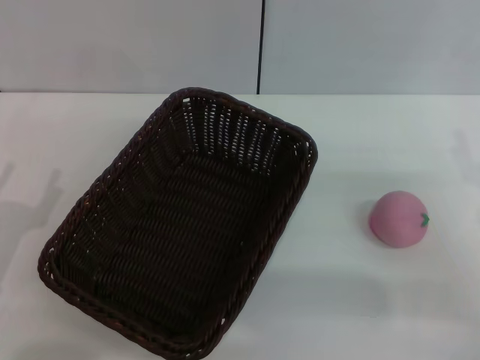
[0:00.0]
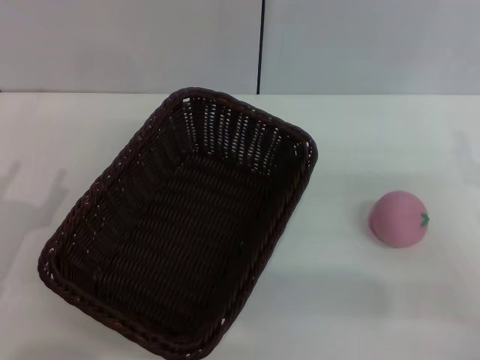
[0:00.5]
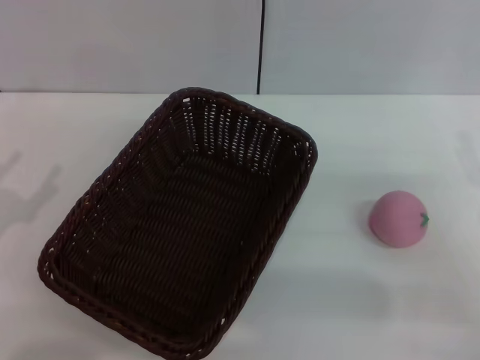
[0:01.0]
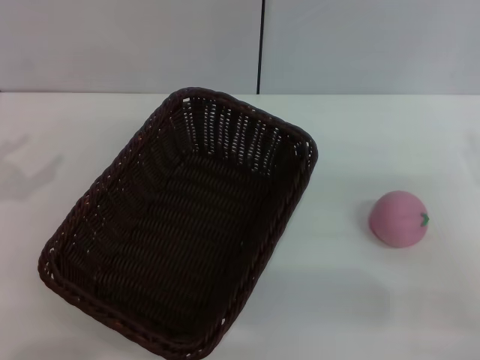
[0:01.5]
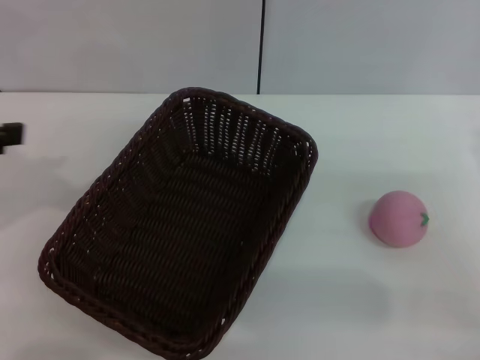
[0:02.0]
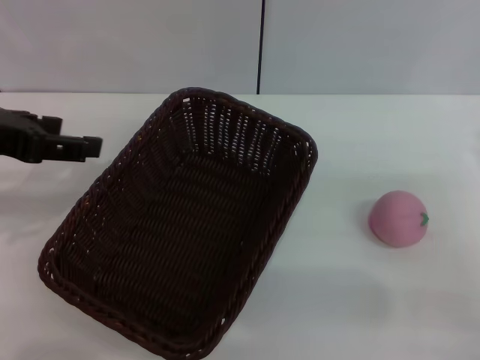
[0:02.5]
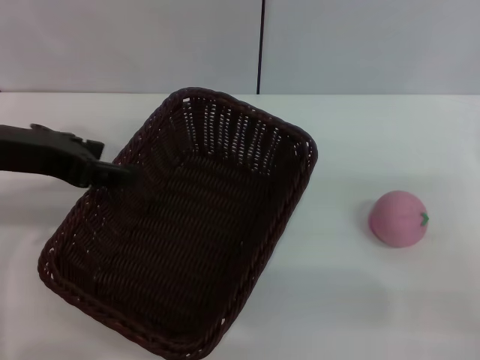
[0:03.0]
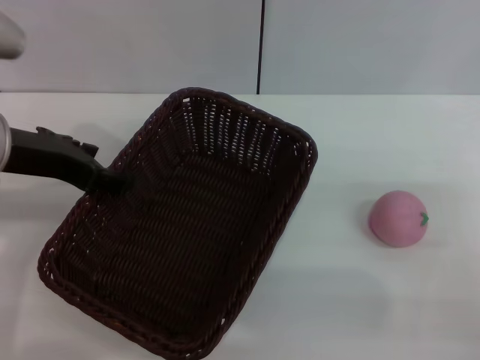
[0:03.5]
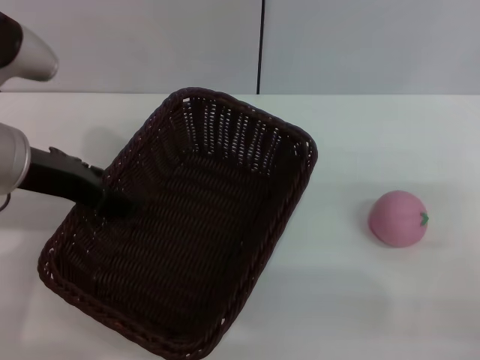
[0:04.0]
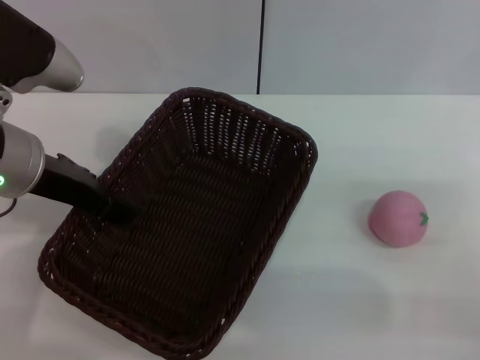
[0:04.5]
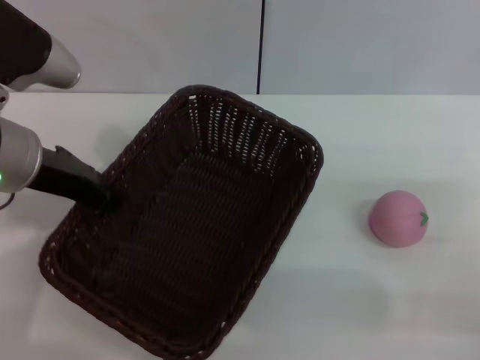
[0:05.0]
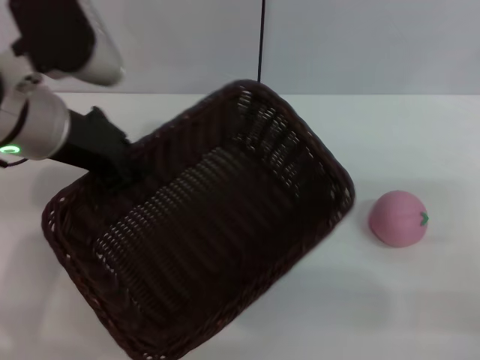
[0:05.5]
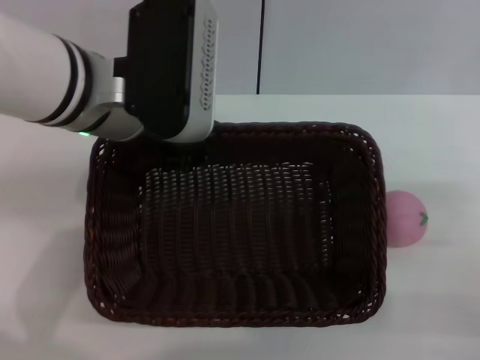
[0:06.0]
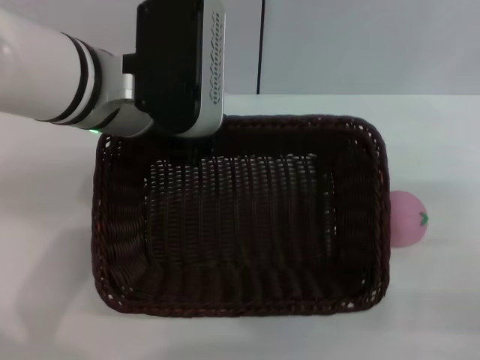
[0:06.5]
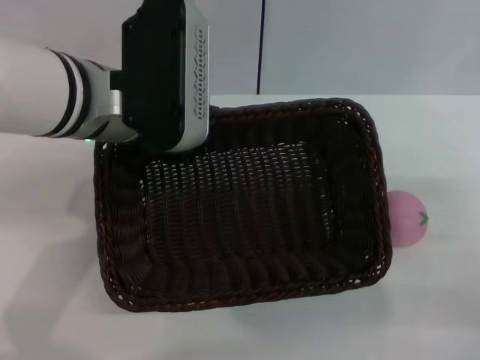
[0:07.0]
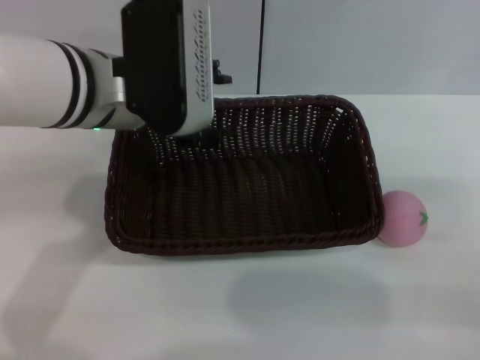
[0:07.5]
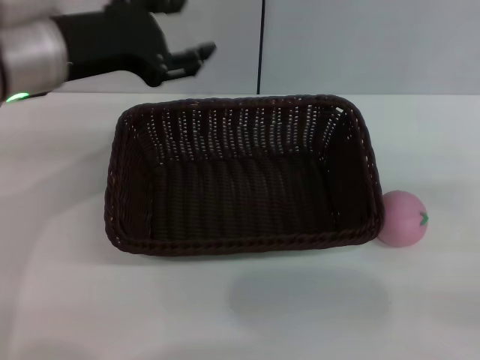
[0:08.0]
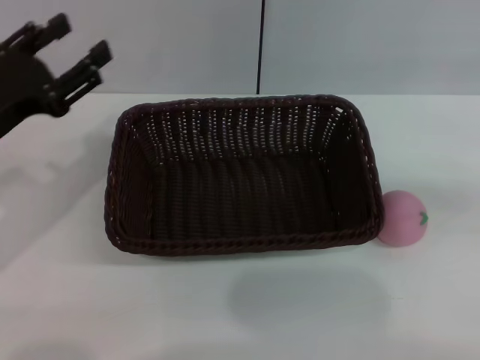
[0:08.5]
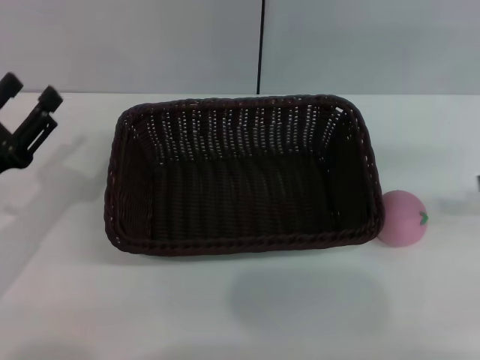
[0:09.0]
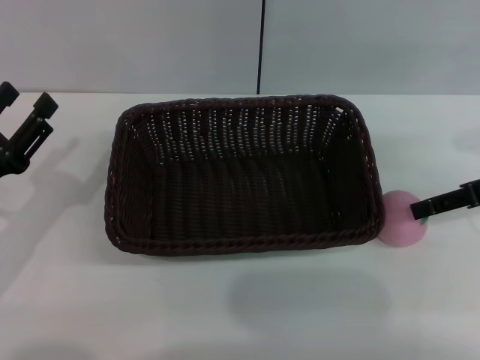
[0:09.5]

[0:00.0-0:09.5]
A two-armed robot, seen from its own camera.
Step, 0:00.0 to 0:05.5: Pick up the dark basket with the left gripper.
Step, 0:06.0 to 0:07.5: Place the dark basket in the center of view with the right gripper.
0:02.0 to 0:04.0: The left gripper is displaced to the right and downward by about 15 cm.
0:04.0 to 0:05.5: The left gripper closes.
0:05.5 to 0:07.5: The left gripper heads to the right, covering roughly 5 cm, and opens.
0:07.5 to 0:09.5: The right gripper moves forward and upward, about 15 cm. Meanwhile the left gripper goes roughly 25 cm to the left, downward and backward.

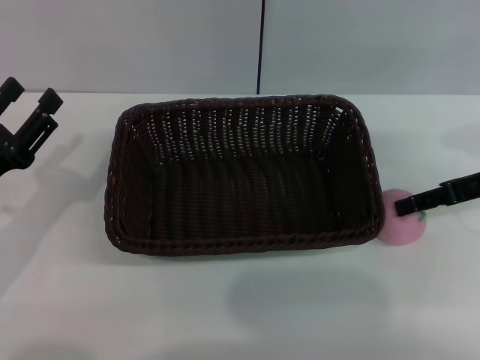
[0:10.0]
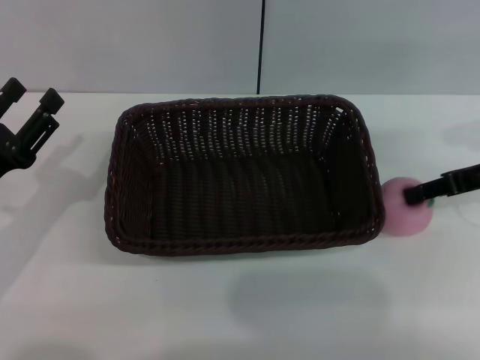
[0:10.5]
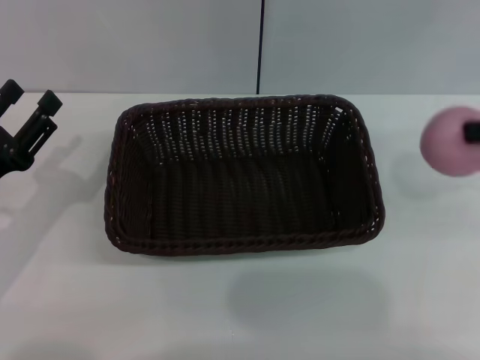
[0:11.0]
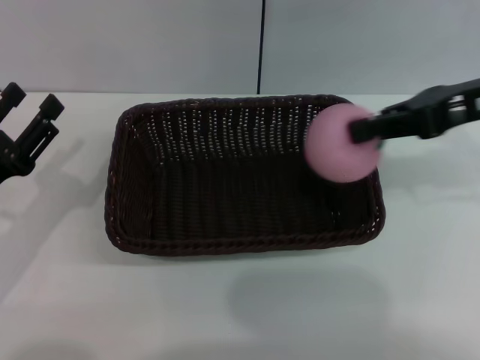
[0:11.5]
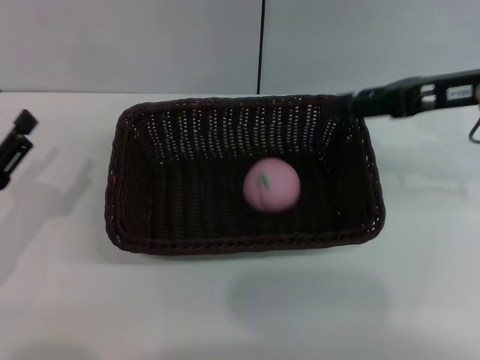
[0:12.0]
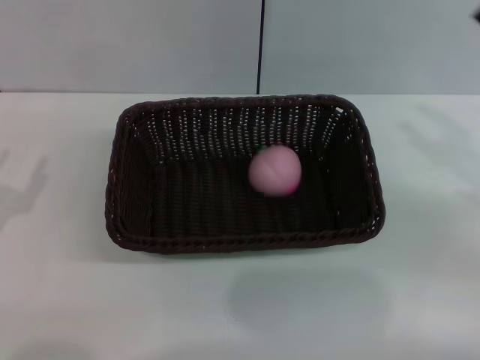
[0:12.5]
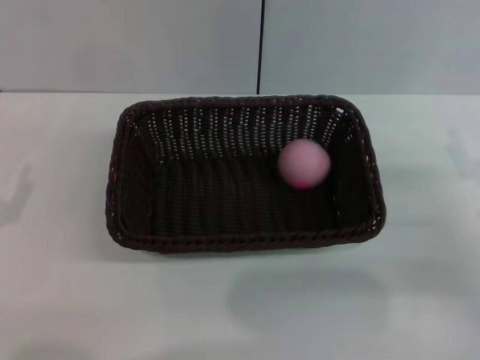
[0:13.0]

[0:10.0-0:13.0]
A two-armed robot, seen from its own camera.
Step, 0:11.5 to 0:12.0: Place the peach into the basket with the left gripper.
0:10.0 to 0:11.5: The right gripper shifts some 10 cm upward and to the left, and closes its fingers.
0:11.5 to 0:13.0: The left gripper changes place by approximately 5 cm. Meanwhile the right gripper is displaced downward and backward by roughly 20 cm, and opens.

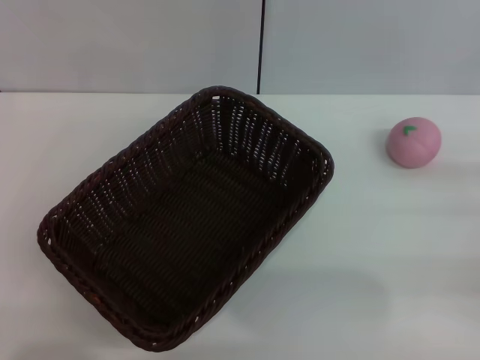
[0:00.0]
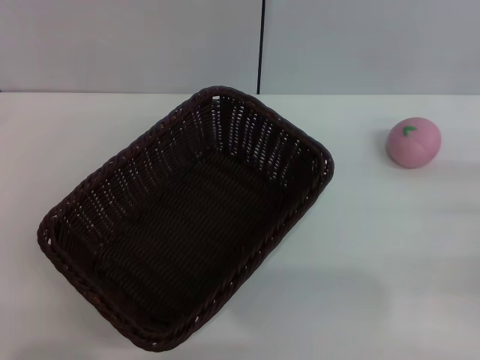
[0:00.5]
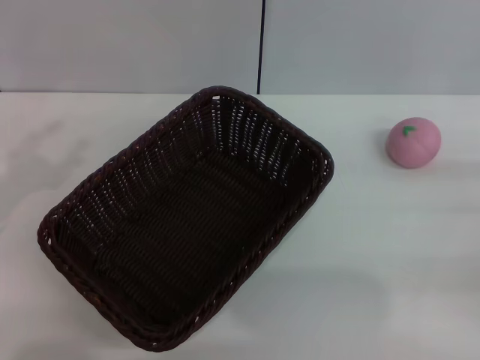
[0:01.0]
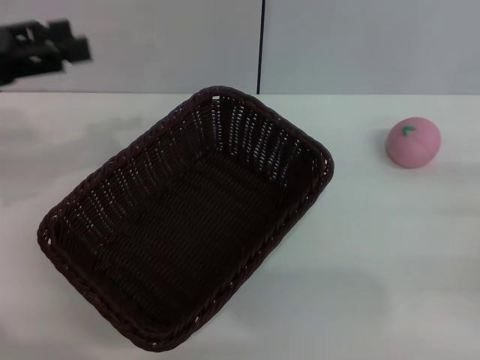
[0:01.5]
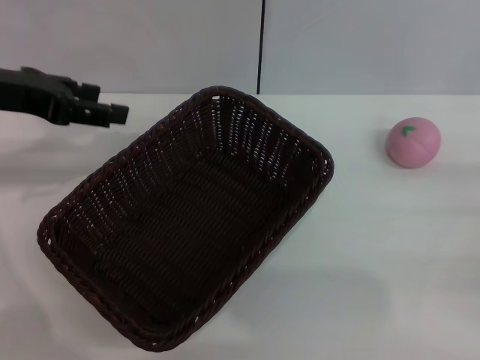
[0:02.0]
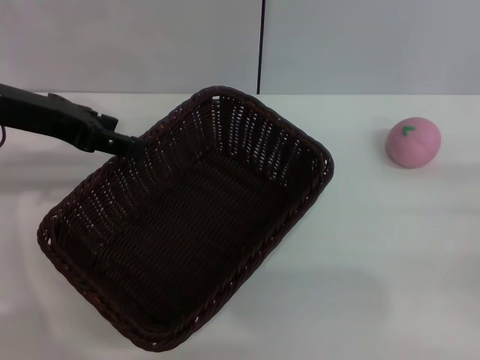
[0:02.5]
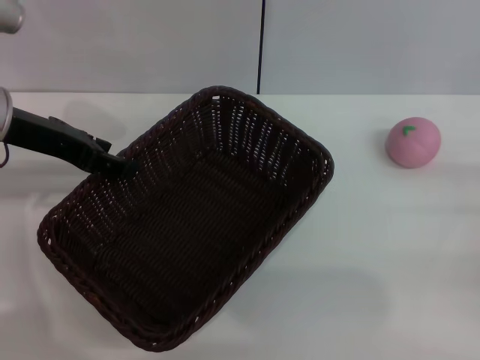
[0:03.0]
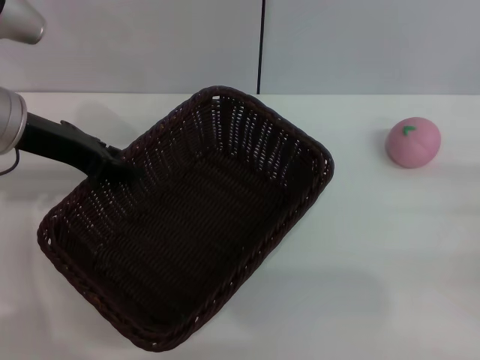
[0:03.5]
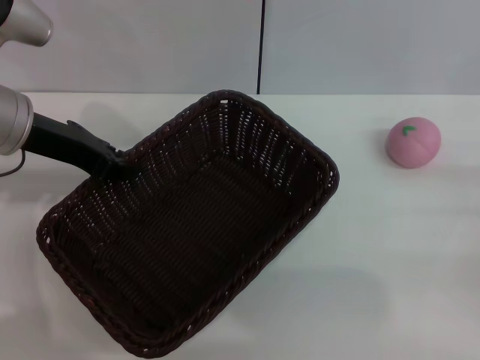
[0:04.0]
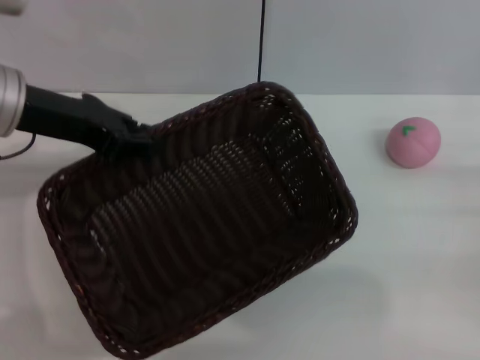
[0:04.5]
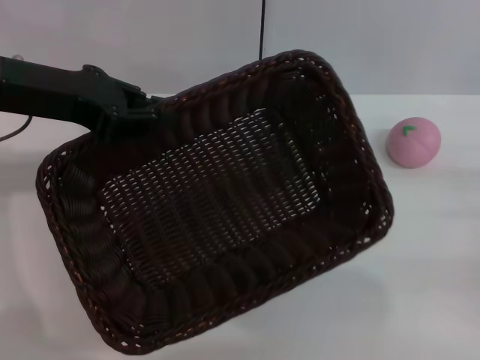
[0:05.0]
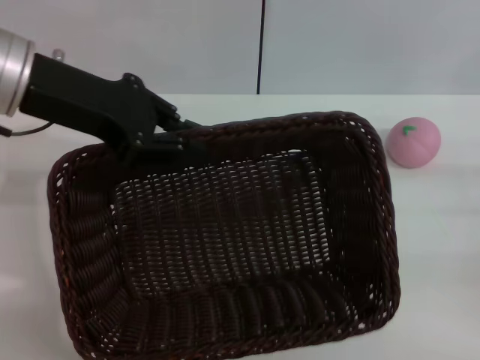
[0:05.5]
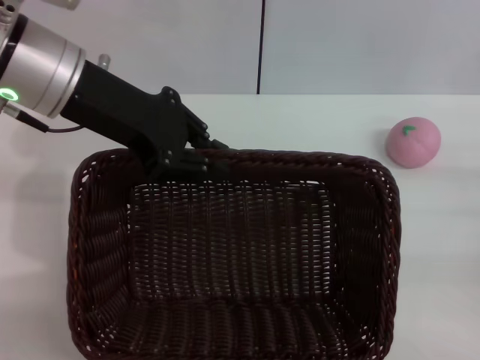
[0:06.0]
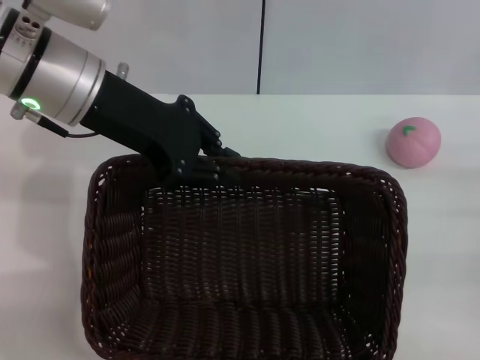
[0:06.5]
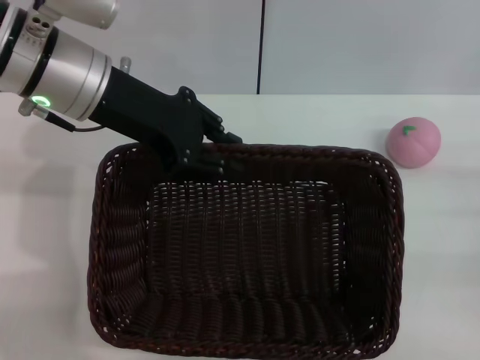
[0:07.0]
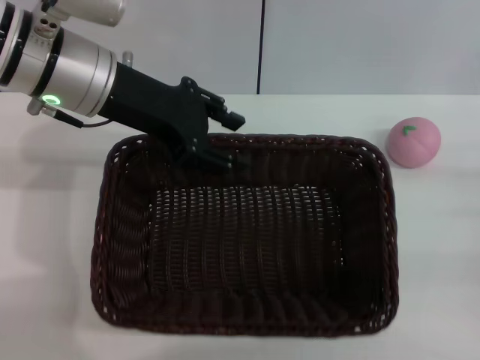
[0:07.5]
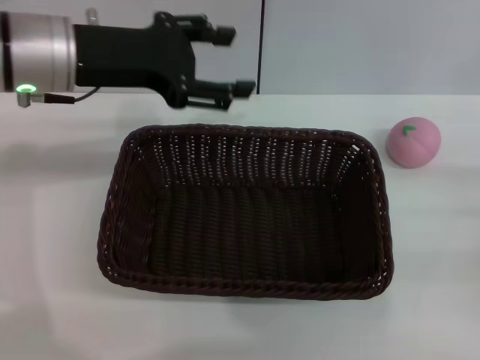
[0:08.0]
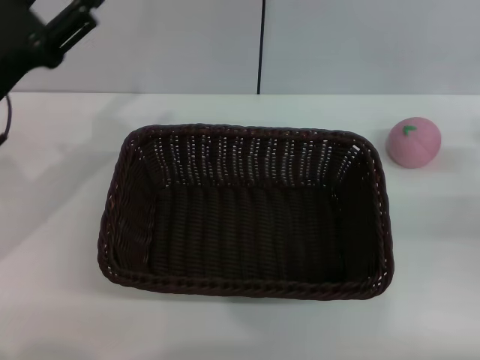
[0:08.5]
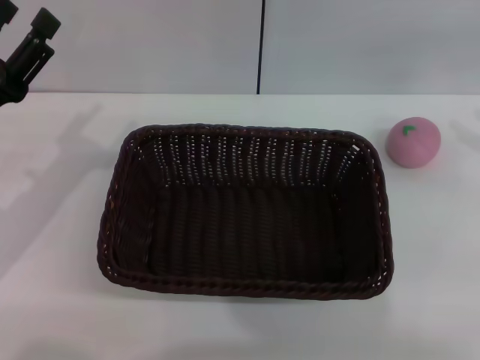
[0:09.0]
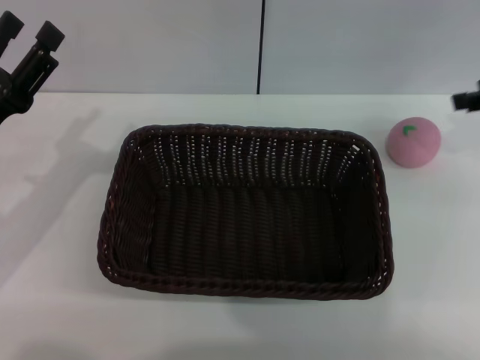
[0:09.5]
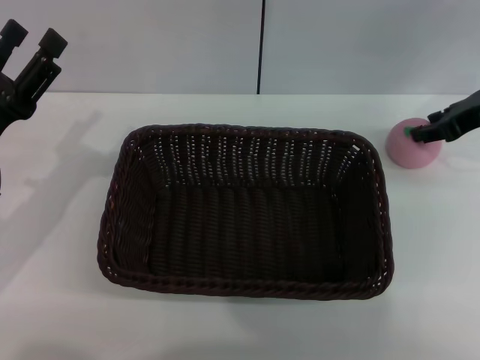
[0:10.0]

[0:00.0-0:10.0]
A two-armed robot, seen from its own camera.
Step, 0:00.0 to 0:04.5: Pick up the dark basket with the left gripper.
0:00.0 to 0:02.0: The left gripper travels forward, upward and to the right by roughly 25 cm, and closes, then opens again.
0:02.0 to 0:04.0: The left gripper ends up some 5 cm from where it was, and closes its fingers.
0:04.0 to 0:06.0: The left gripper is displaced to the right and upward by roughly 10 cm.
0:06.0 to 0:08.0: The left gripper opens up.
0:08.0 to 0:10.0: The right gripper goes some 20 cm forward, upward and to the left. Meanwhile the left gripper shifts some 20 cm downward, backward and to the left.

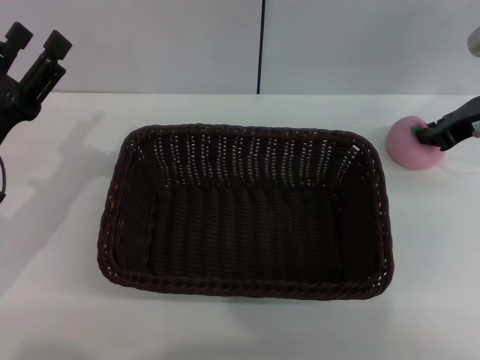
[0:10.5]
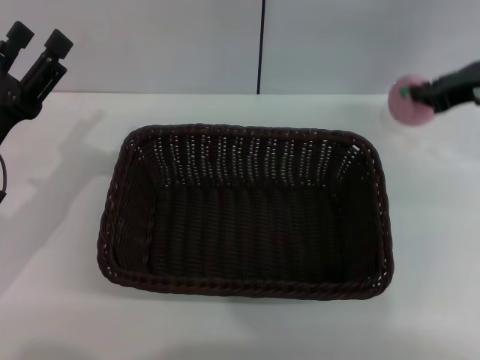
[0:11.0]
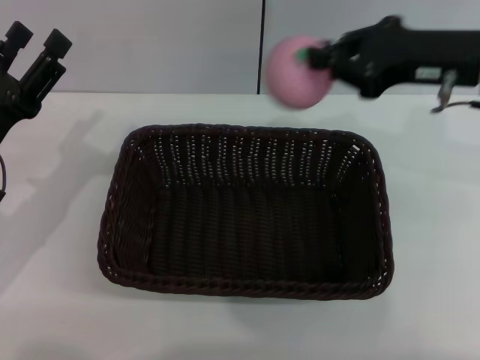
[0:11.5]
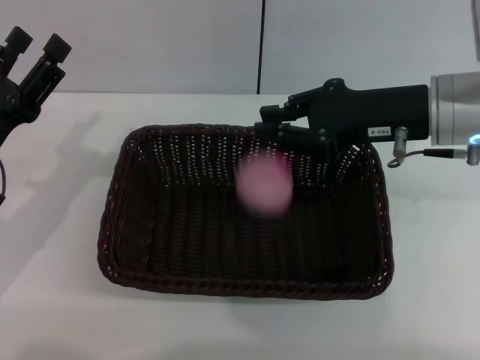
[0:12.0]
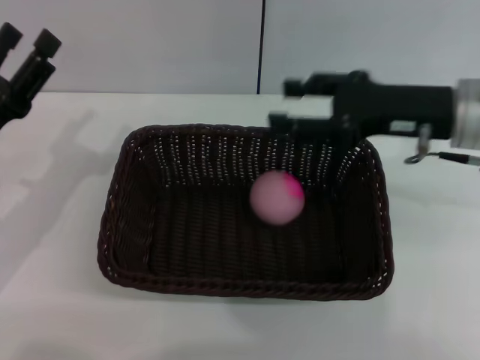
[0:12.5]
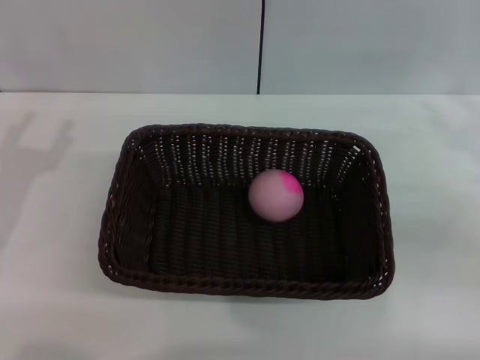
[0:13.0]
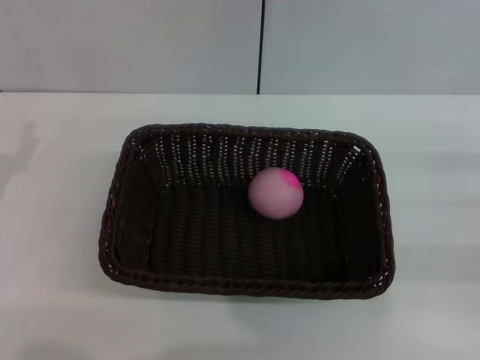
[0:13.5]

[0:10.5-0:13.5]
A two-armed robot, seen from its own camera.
0:10.5 to 0:12.0: The right gripper heads to the left and backward, covering roughly 10 cm.
0:12.0 to 0:13.5: The left gripper moves some 5 cm. Meanwhile the right gripper moves to the right, downward and backward, approximately 25 cm, and opens its fingers.
